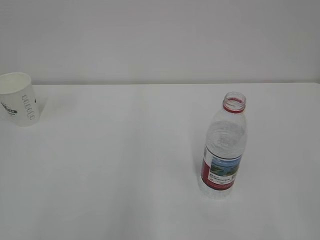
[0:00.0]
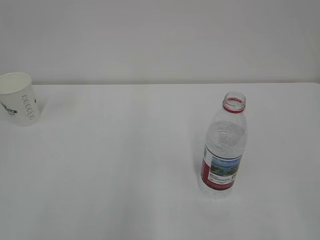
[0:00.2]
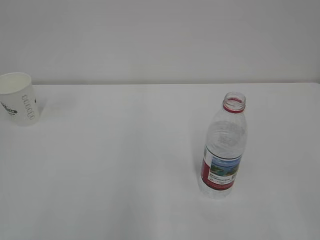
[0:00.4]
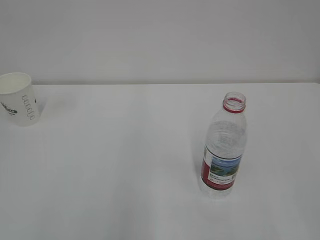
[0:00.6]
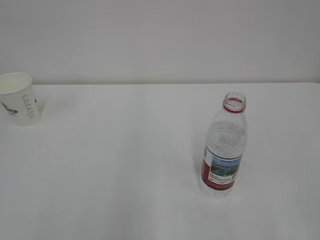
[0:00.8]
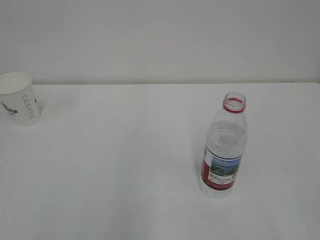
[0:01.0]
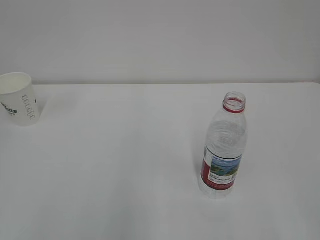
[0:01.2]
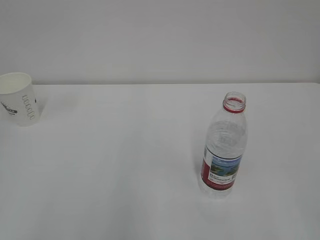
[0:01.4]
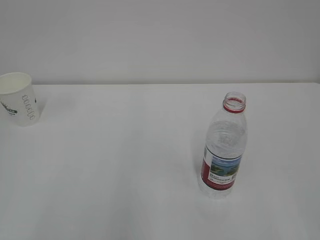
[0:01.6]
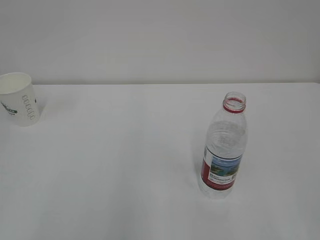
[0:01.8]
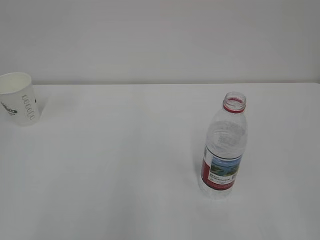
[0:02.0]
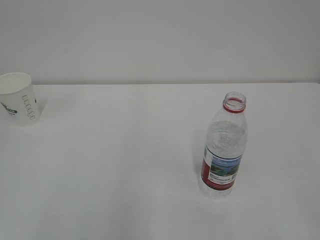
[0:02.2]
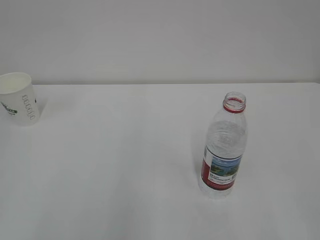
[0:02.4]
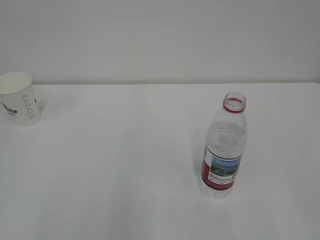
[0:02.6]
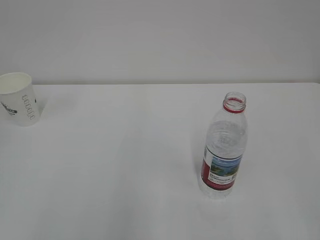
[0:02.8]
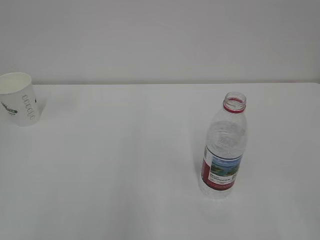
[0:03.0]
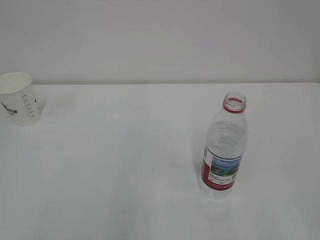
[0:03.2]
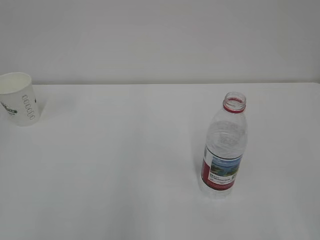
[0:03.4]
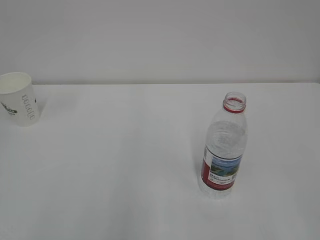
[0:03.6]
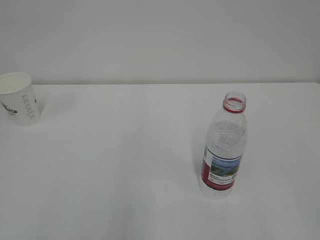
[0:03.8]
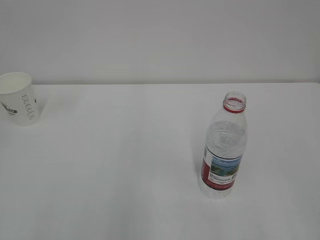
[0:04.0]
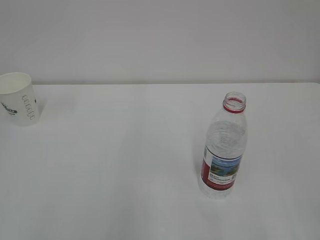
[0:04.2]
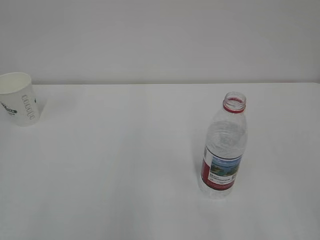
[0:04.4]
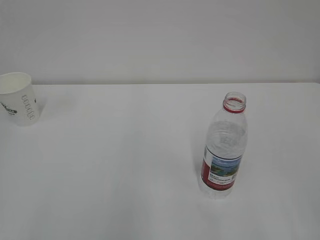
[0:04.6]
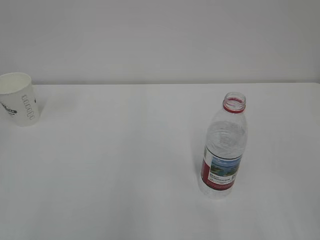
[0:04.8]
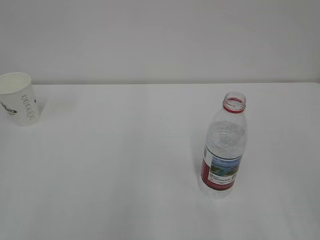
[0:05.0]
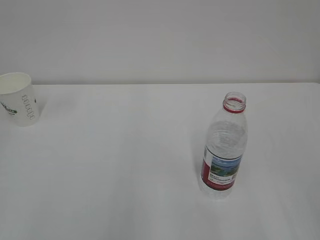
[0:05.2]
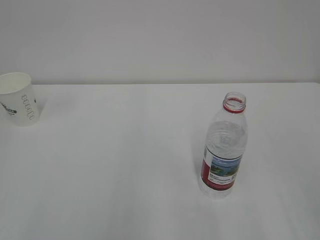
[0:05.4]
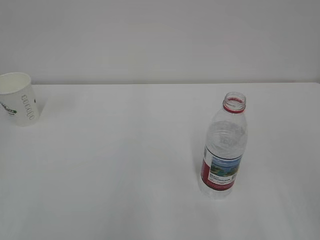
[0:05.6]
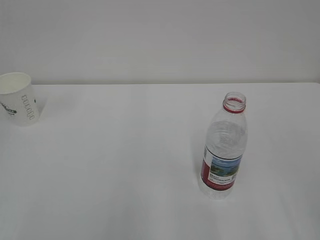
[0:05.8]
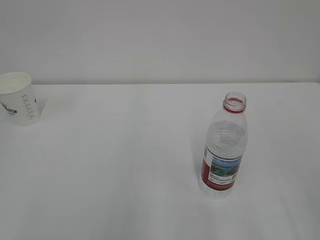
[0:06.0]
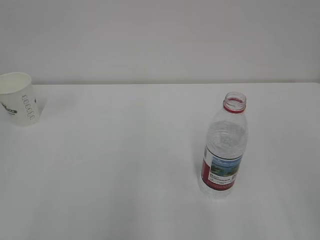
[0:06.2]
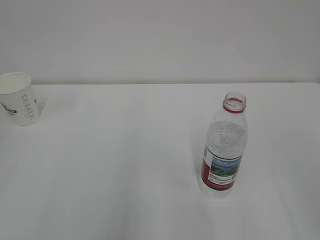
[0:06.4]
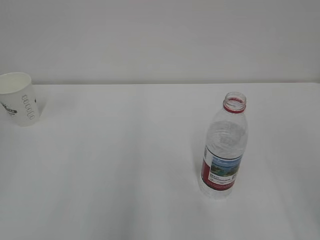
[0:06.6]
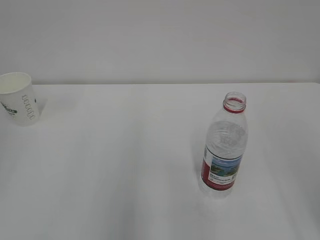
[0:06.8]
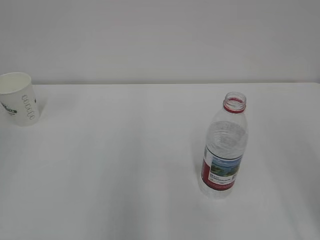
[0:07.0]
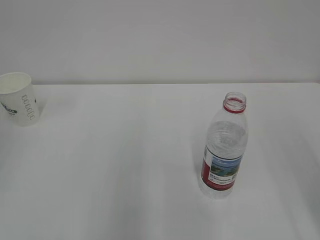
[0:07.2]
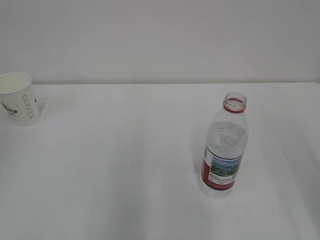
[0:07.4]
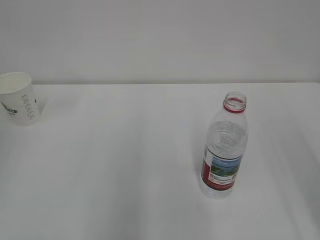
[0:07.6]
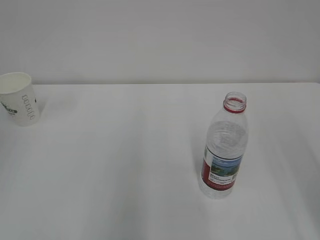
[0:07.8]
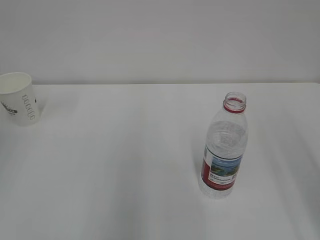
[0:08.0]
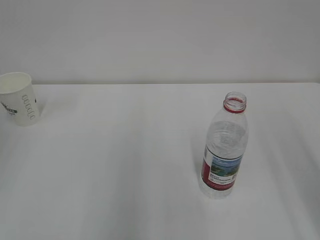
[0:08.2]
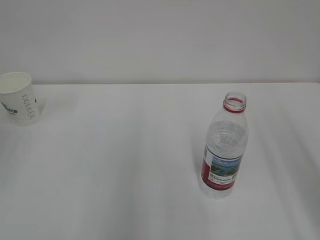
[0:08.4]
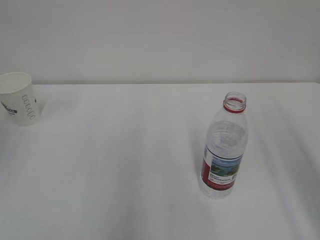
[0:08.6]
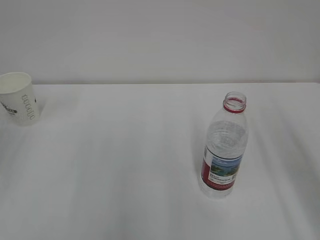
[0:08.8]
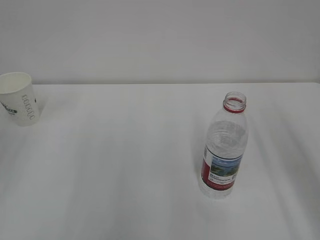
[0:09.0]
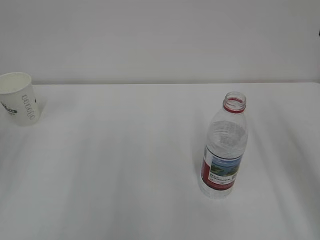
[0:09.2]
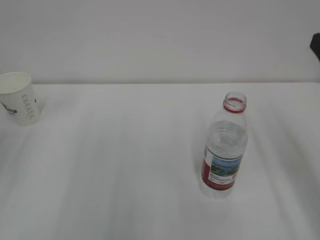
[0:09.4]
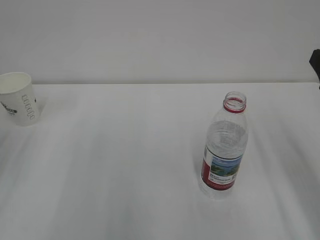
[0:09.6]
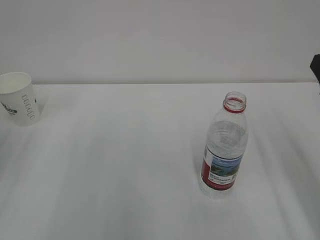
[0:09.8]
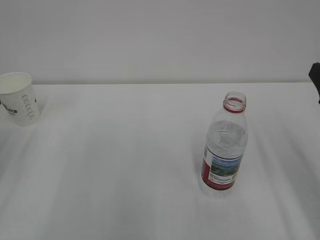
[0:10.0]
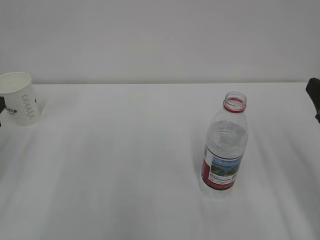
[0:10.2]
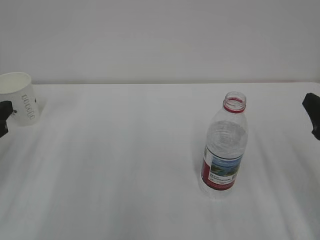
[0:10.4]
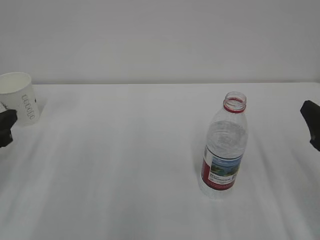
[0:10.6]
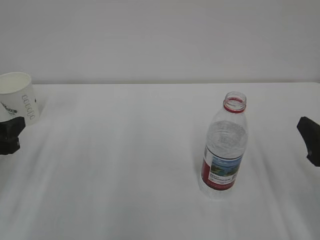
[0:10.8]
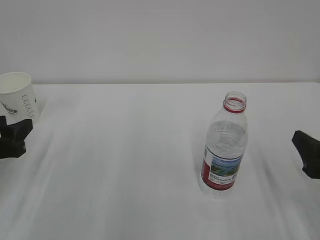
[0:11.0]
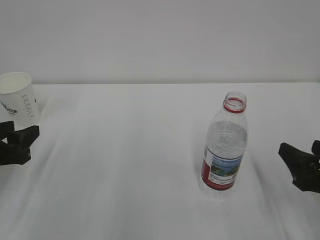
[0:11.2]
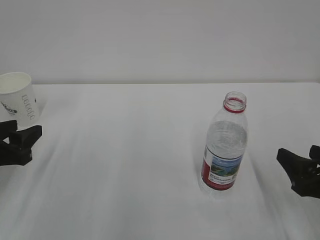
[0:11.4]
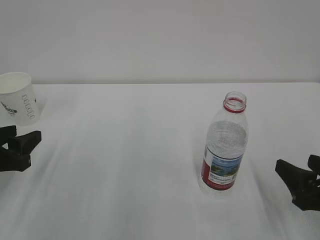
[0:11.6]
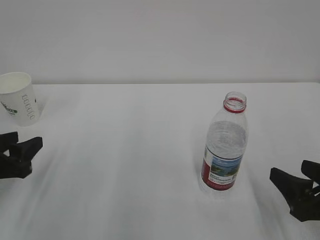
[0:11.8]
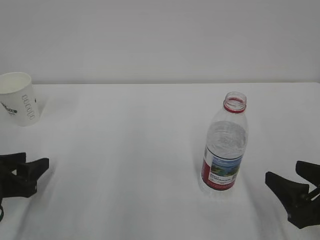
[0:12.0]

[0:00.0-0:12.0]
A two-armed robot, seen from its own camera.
0:01.6 to 0:03.0: Neither gripper changes place.
0:09.0 to 0:10.4: The right gripper travels downward by about 10 cm.
0:10.4 to 0:12.0: Both grippers travel together downward, about 10 cm.

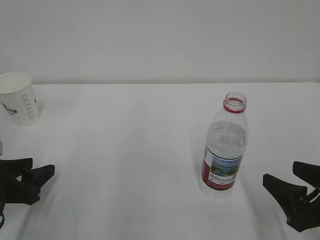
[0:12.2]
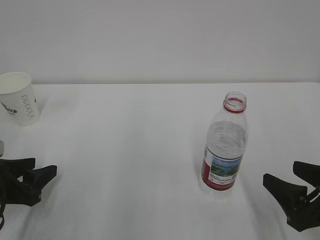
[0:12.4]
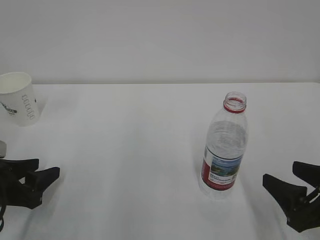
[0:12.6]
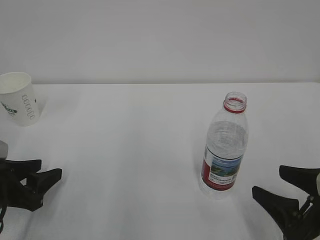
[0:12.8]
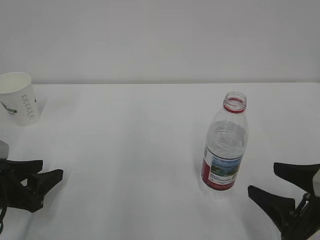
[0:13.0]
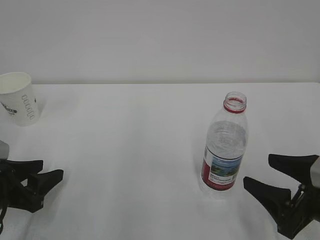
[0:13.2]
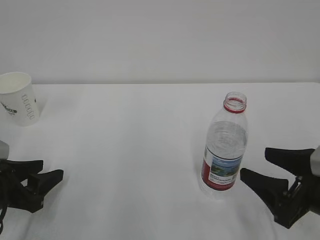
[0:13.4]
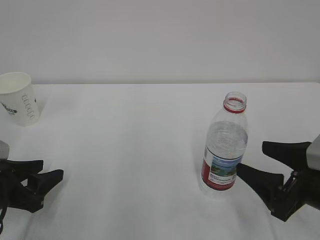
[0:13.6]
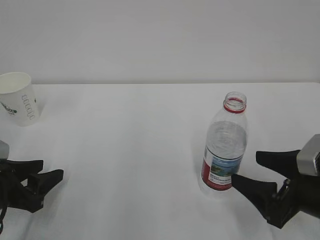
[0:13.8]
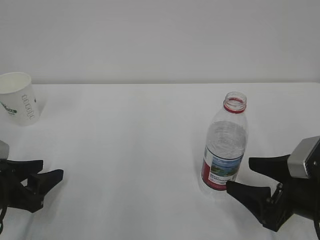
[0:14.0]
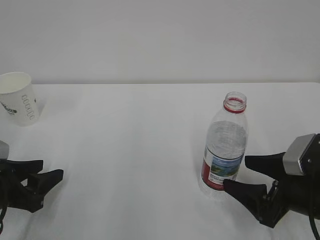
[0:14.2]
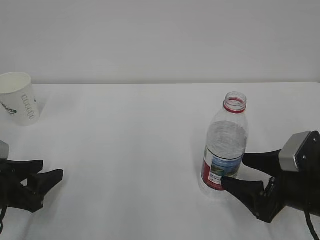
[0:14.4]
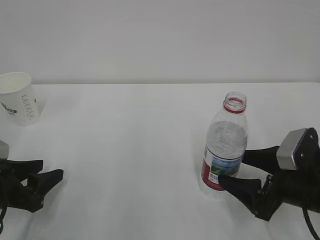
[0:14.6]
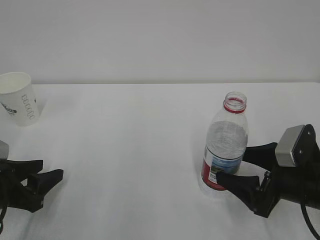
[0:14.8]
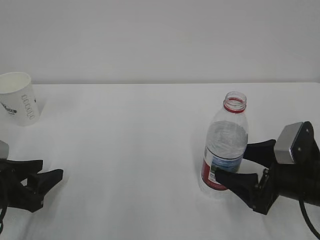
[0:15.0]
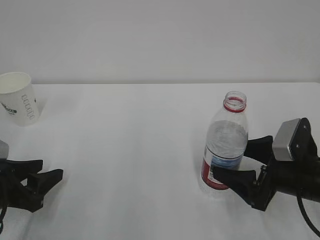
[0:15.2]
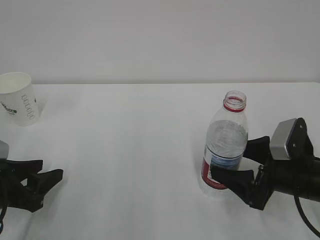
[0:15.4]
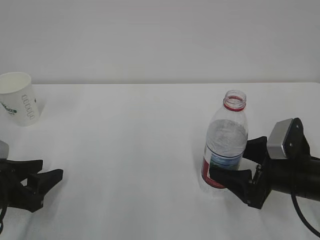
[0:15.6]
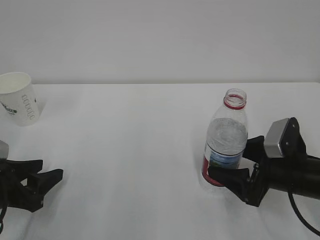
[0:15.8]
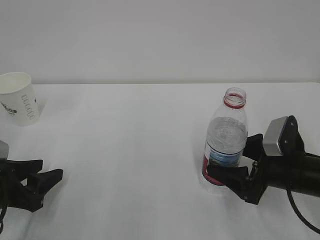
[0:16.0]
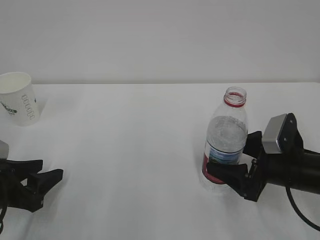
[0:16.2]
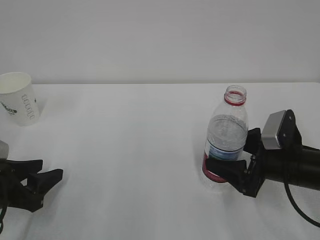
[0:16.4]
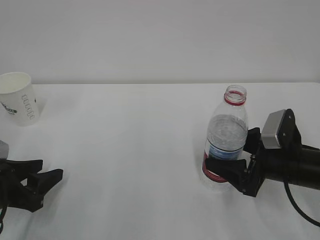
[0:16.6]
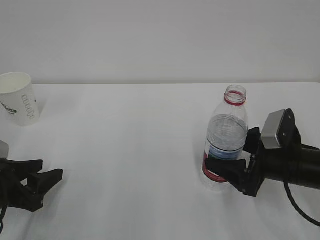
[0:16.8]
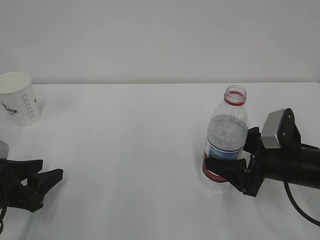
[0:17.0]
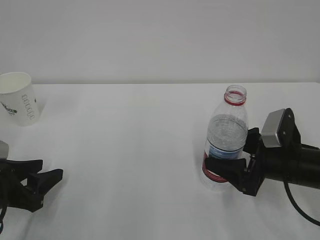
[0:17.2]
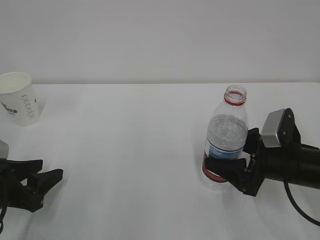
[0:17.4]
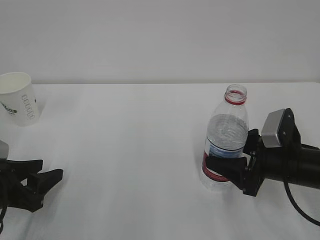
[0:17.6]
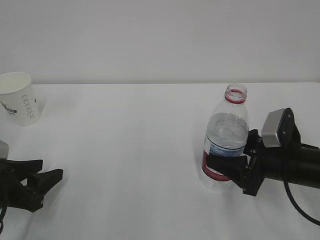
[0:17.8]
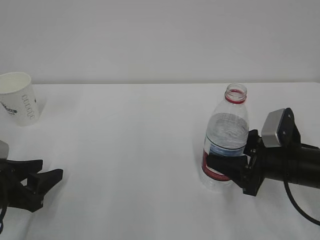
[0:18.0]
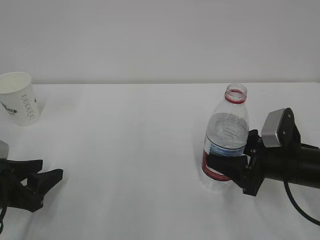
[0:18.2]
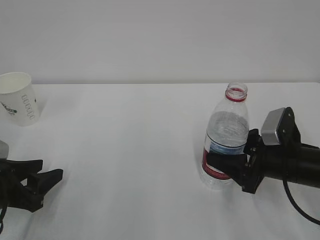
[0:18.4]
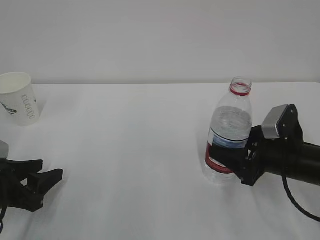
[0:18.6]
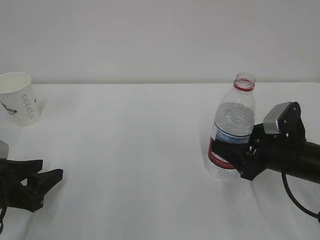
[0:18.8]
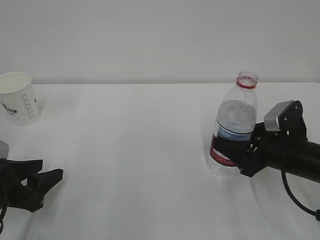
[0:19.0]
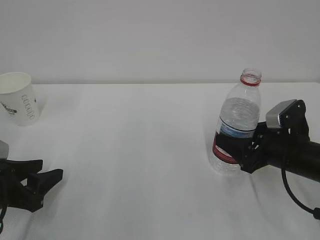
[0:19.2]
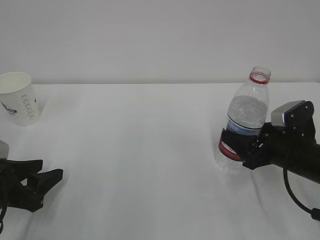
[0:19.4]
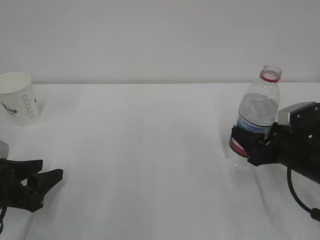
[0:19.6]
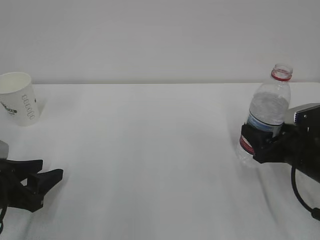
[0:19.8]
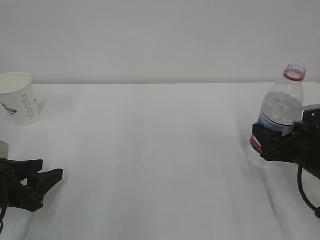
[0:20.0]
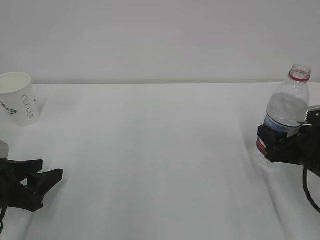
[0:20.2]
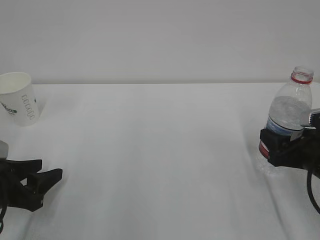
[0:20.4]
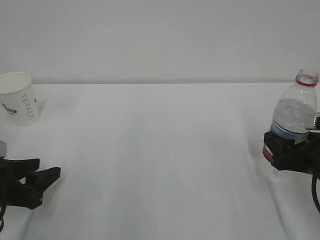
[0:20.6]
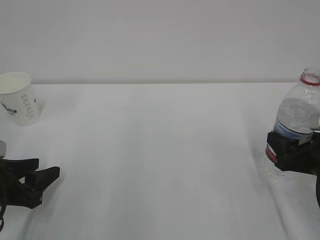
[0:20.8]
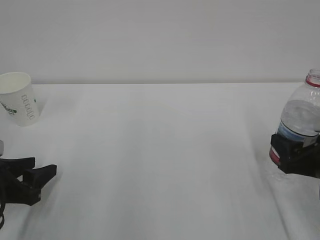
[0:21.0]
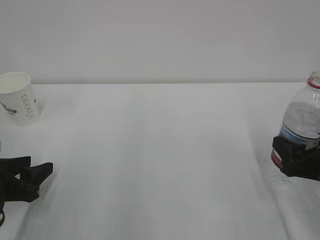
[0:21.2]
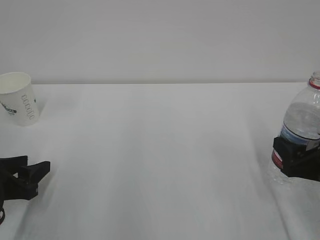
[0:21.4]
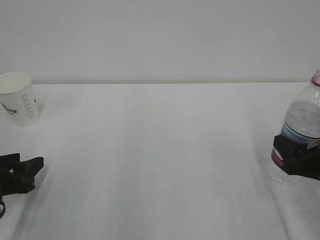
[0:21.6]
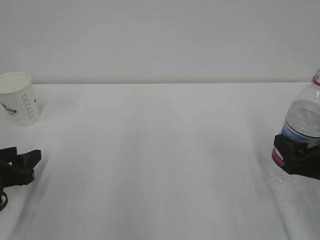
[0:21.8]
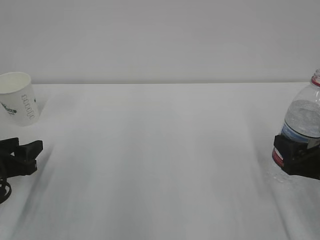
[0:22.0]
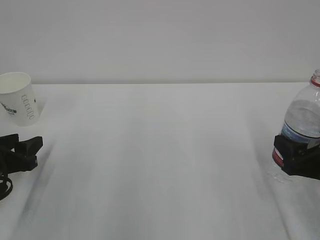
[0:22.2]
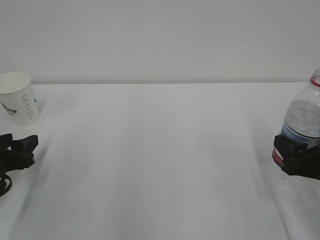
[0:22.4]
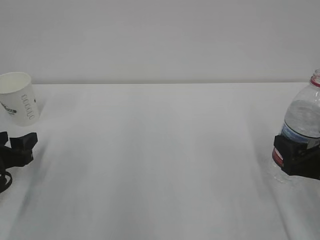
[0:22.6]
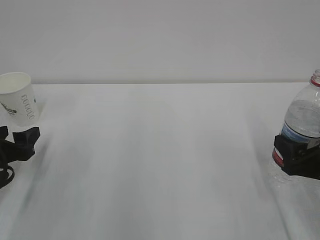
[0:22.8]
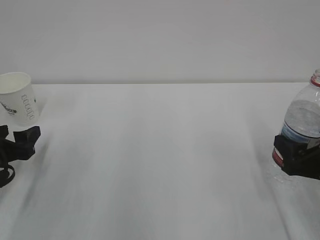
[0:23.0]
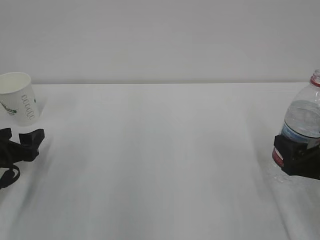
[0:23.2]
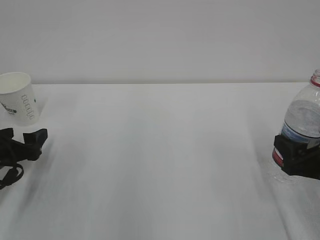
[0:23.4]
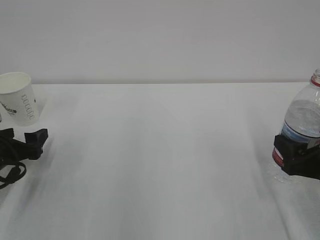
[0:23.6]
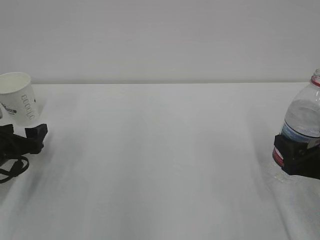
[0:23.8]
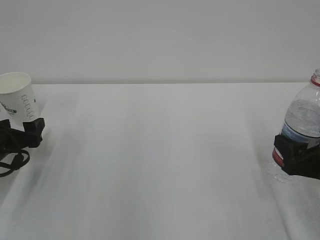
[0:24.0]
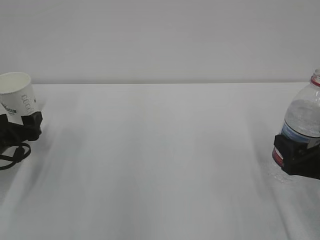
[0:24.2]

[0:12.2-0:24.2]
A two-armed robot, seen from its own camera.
0:12.2 to 0:13.8: The right gripper opens.
0:13.8 to 0:15.2: There are only small adjustments of the grippers.
0:15.2 to 0:16.6: There are only small adjustments of the grippers.
0:16.6 to 0:18.2: The right gripper closes.
0:19.8 to 0:21.2: The right gripper goes roughly 5 cm backward.
0:21.2 to 0:22.6: The grippers stay close to where they were, moving slightly.
0:22.6 to 0:24.2: The left gripper heads forward, covering about 5 cm, and opens up.
